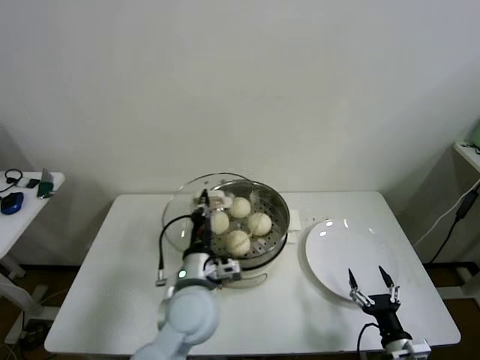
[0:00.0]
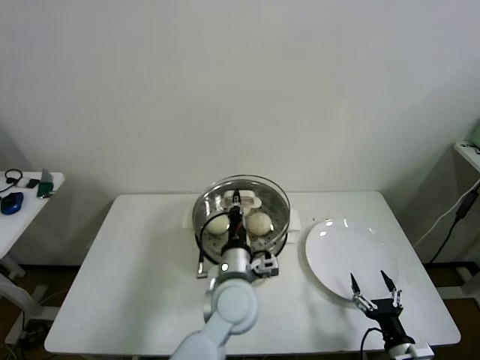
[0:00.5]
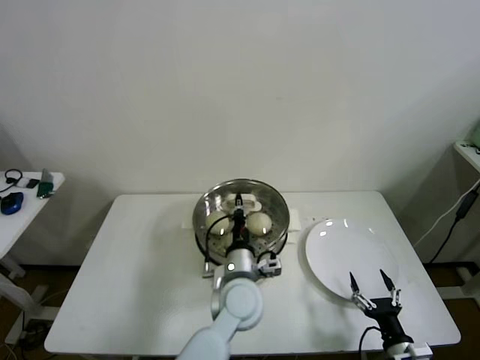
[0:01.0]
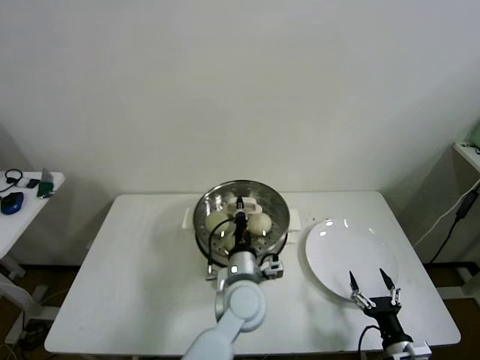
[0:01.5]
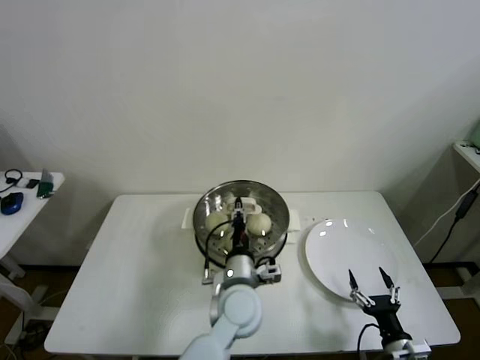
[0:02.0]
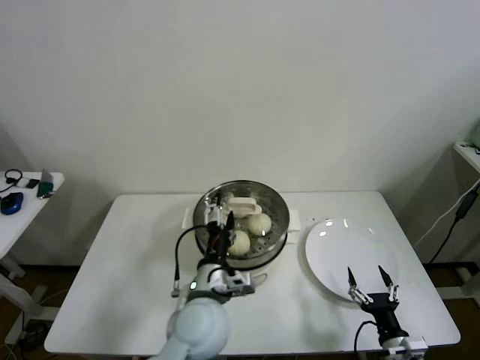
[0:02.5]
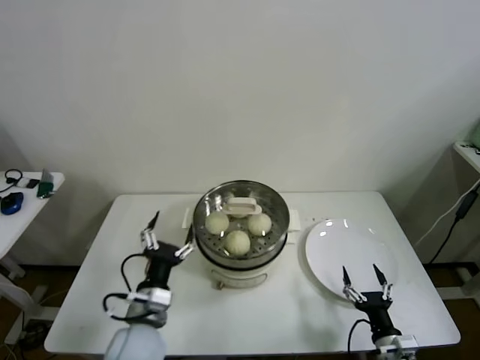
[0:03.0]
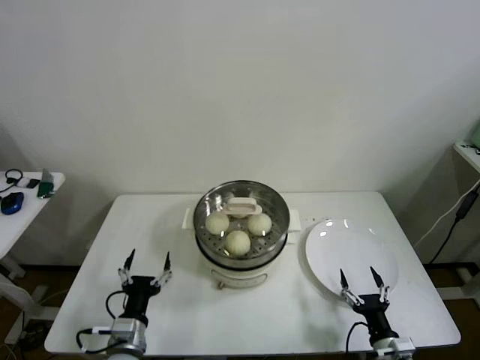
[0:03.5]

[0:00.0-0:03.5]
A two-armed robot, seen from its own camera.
0:00.0 to 0:02.0: The left gripper heads to the right, covering approximately 10 cm.
0:02.0 to 0:03.5: The left gripper shifts roughly 25 cm to the left and backward, and opens its fingers.
